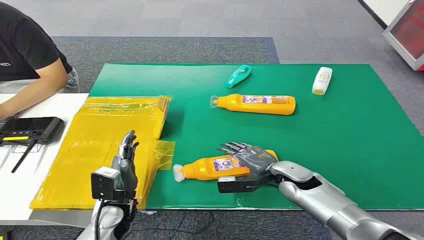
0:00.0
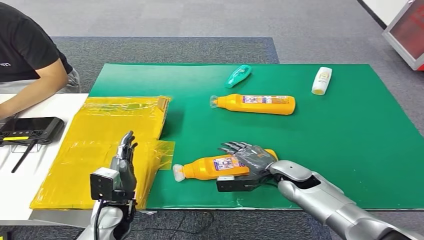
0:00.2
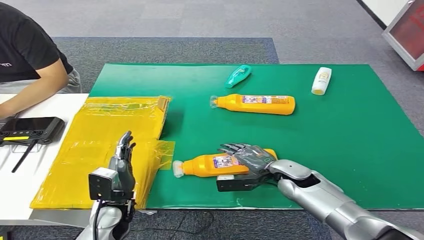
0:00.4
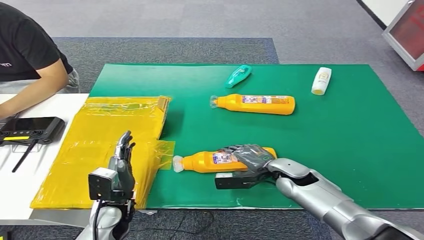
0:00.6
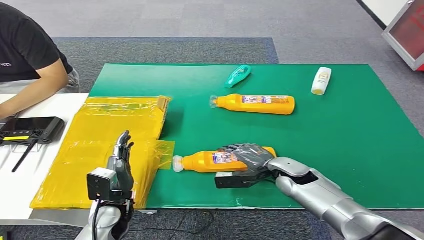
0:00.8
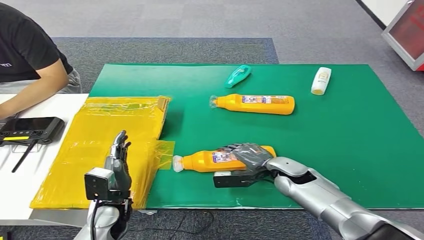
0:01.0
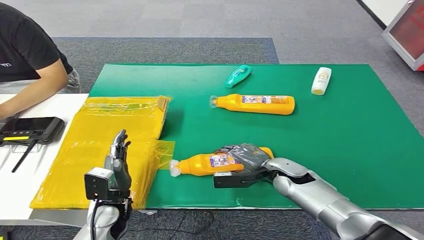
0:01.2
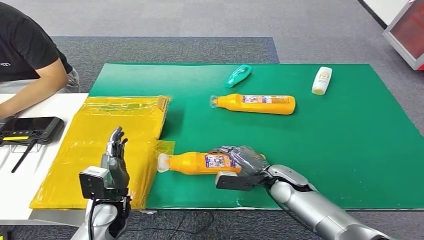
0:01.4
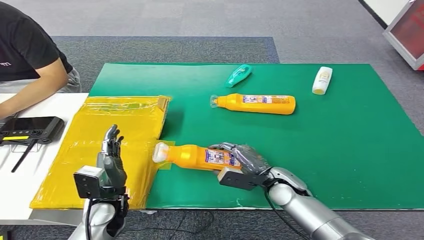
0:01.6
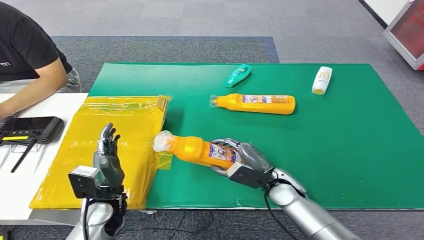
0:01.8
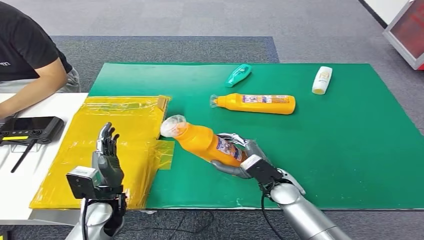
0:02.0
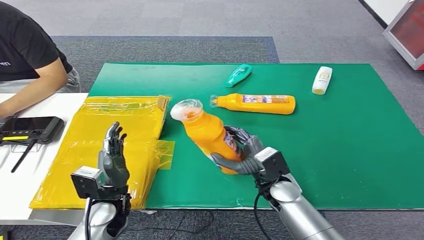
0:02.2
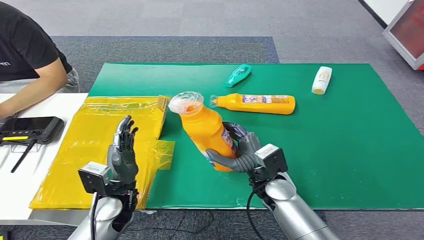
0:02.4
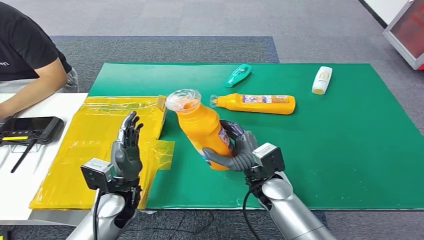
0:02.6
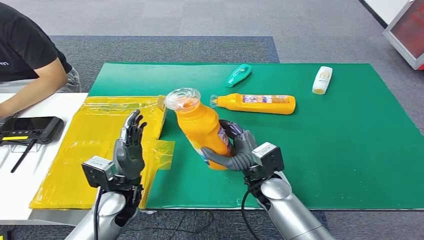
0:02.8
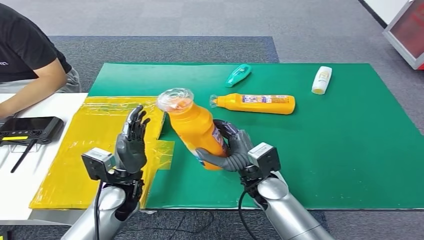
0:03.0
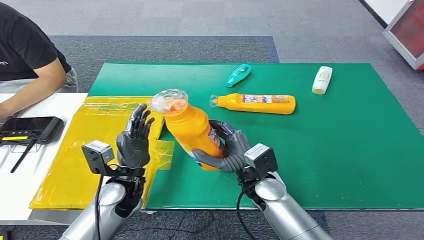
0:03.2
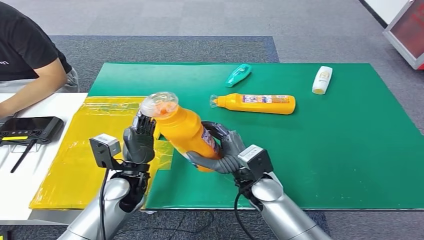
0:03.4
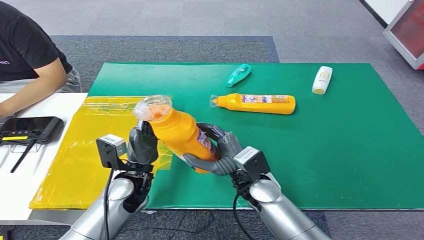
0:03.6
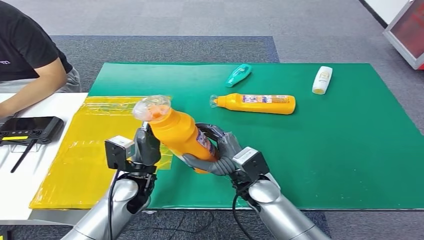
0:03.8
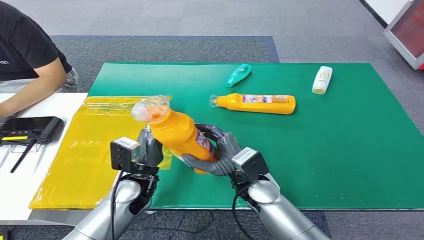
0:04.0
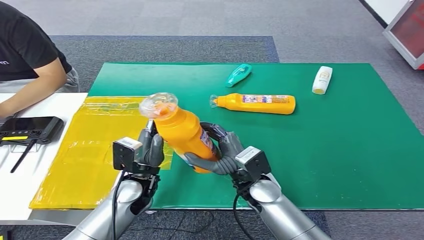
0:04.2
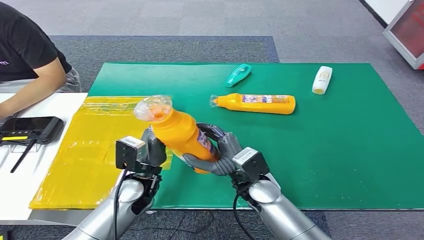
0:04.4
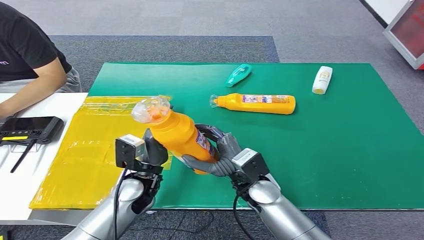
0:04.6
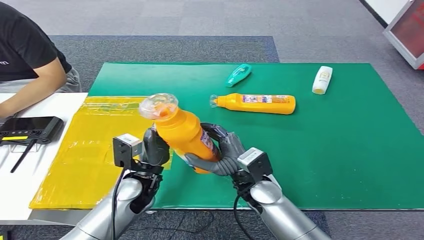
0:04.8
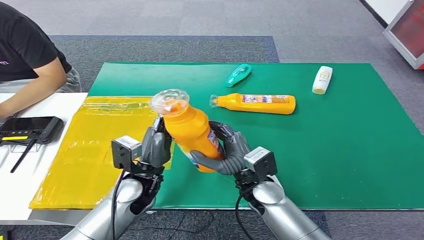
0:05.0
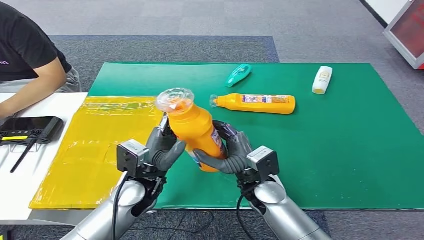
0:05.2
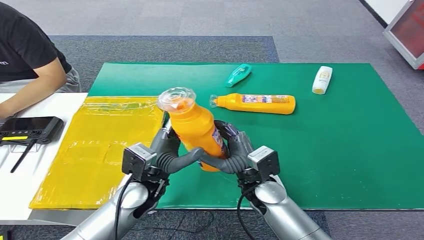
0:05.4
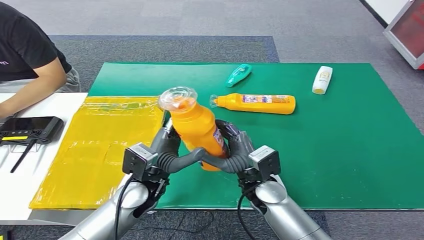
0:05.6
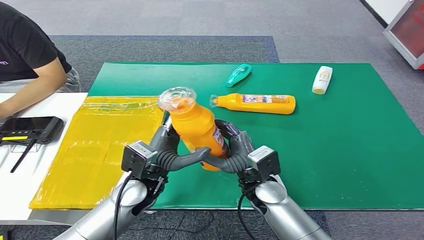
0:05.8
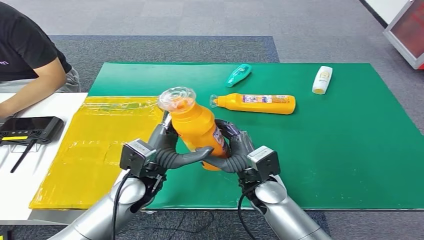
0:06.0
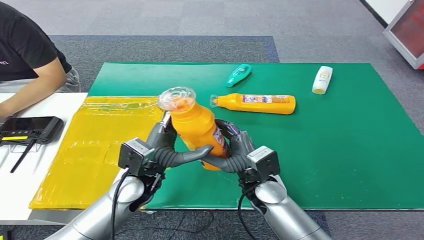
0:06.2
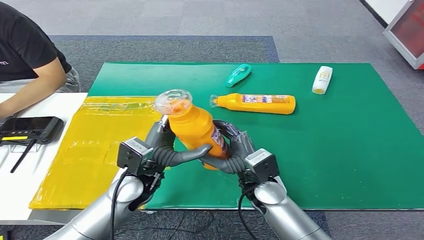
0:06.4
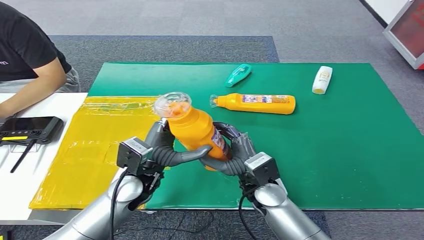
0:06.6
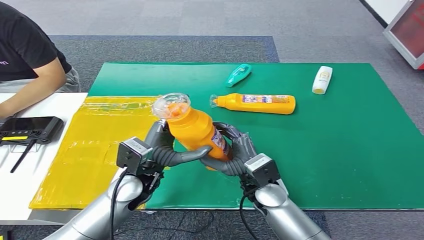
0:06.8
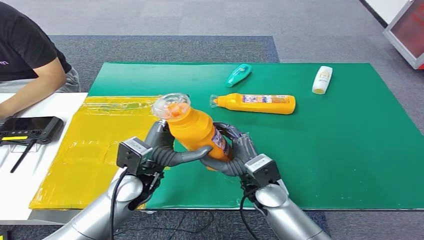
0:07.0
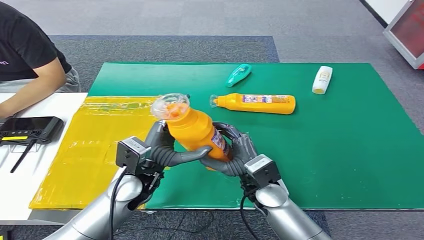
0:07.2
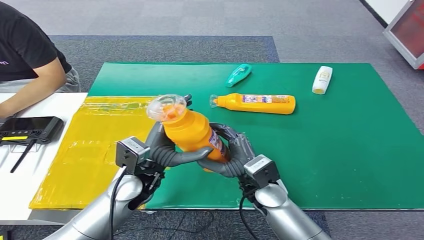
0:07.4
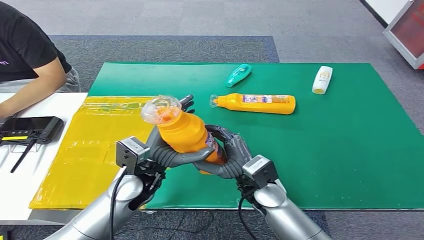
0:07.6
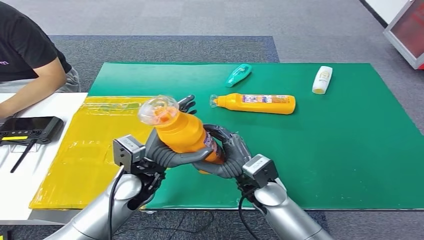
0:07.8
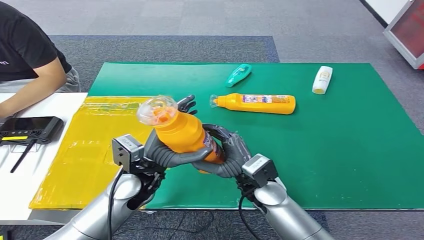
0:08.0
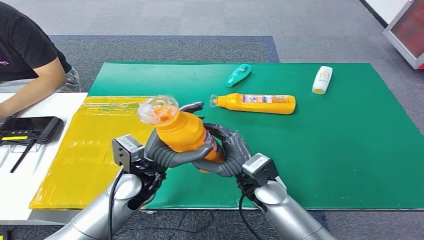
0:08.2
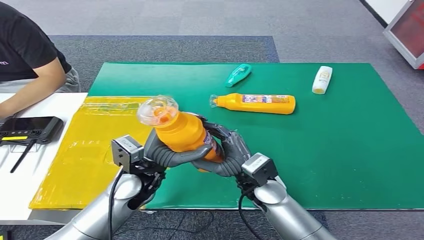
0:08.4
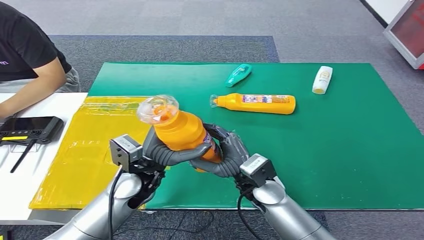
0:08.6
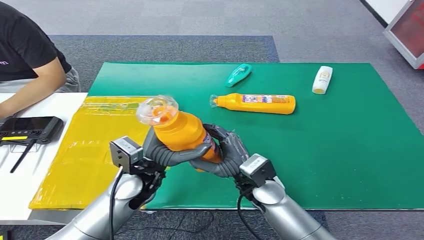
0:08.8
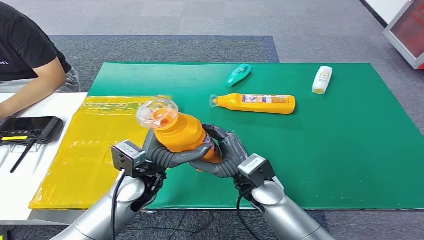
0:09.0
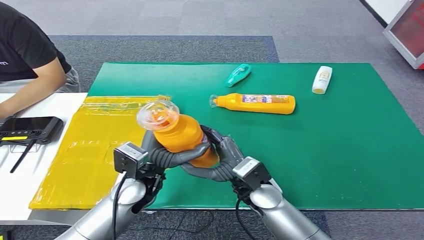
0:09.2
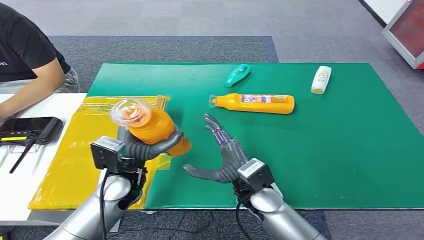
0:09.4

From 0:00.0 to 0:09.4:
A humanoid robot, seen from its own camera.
Step, from 0:00.0 to 0:02.4: Pick up the bottle from the table.
Step, from 0:02.8 to 0:09.4: Turn the bottle to the front side.
From 0:01.6 to 0:03.2: The left hand changes place by roughly 5 cm; the right hand is displaced to the left and upward by some 10 cm.
From 0:03.2 to 0:09.4: The hands move only a little.
